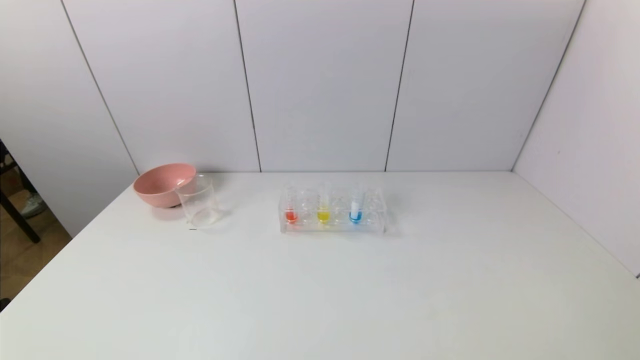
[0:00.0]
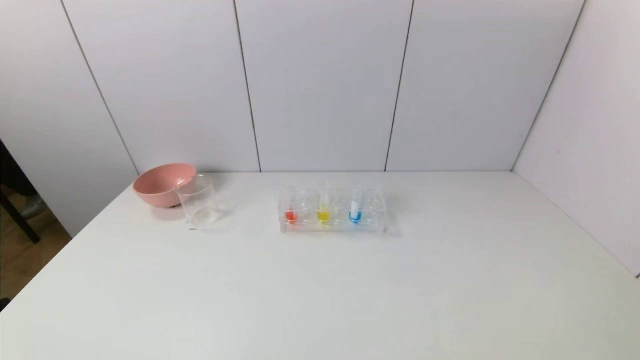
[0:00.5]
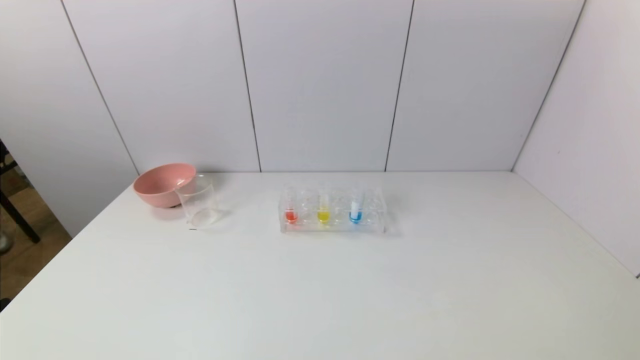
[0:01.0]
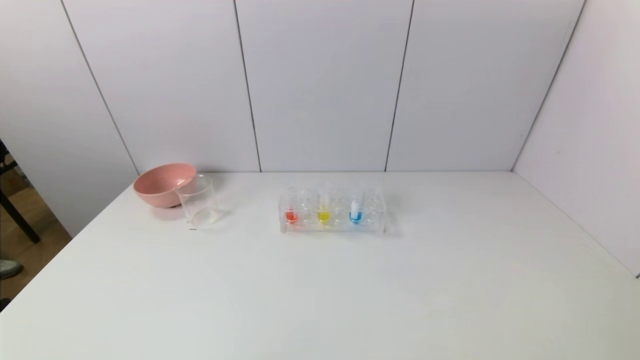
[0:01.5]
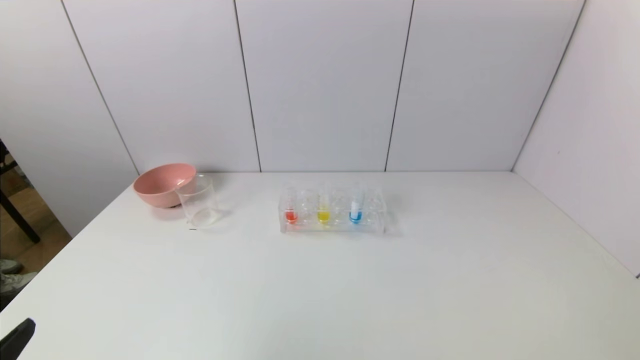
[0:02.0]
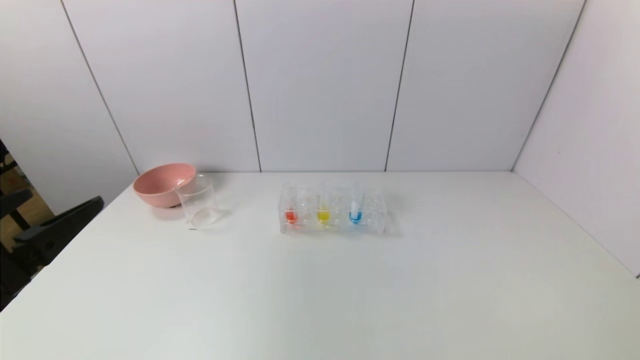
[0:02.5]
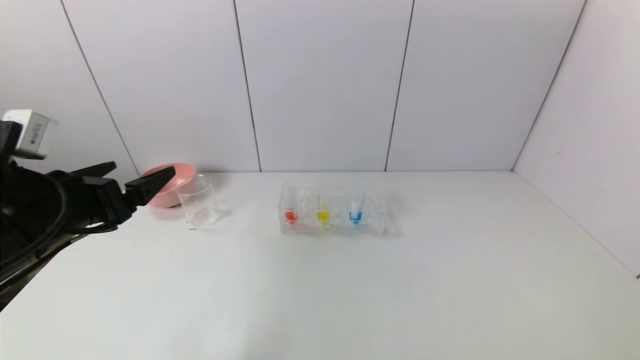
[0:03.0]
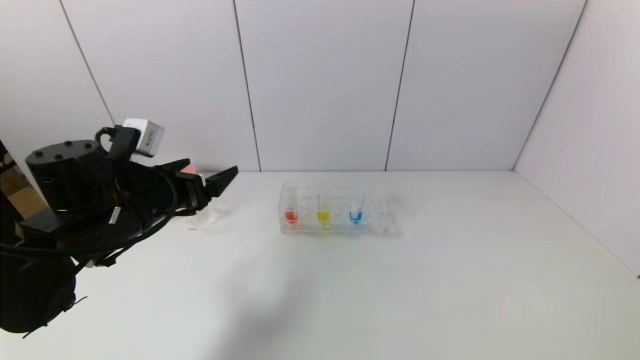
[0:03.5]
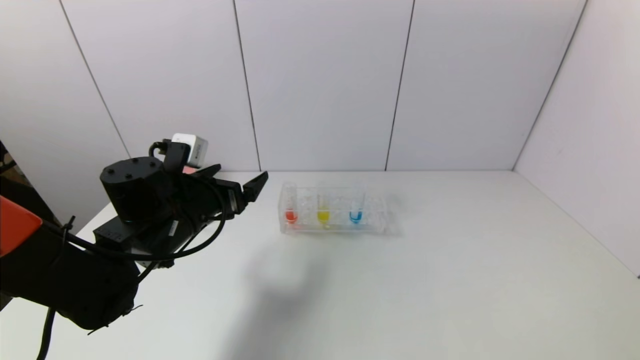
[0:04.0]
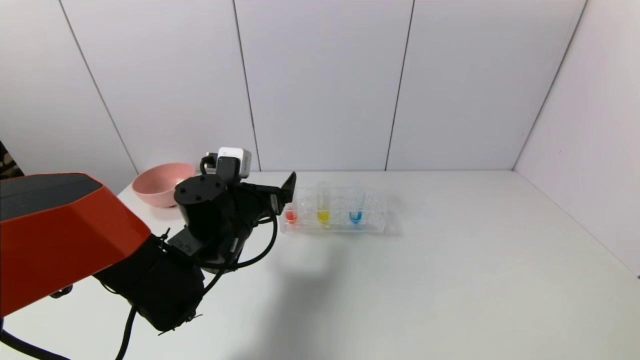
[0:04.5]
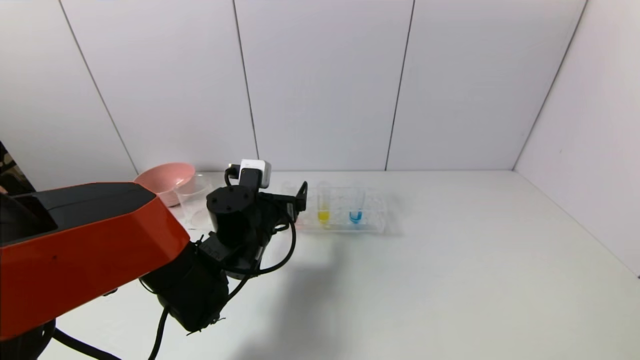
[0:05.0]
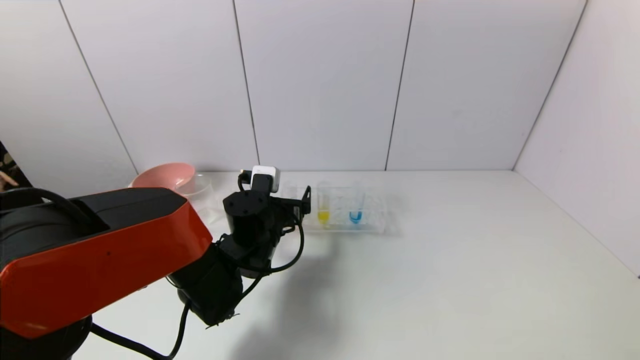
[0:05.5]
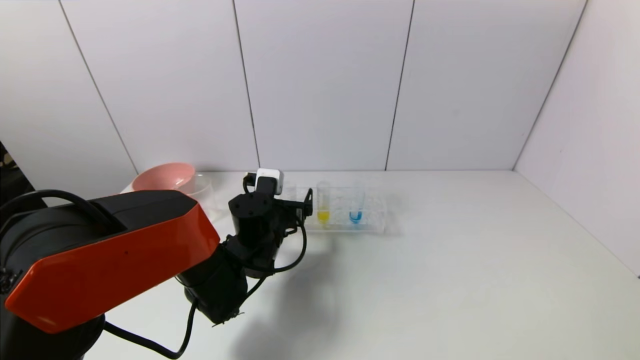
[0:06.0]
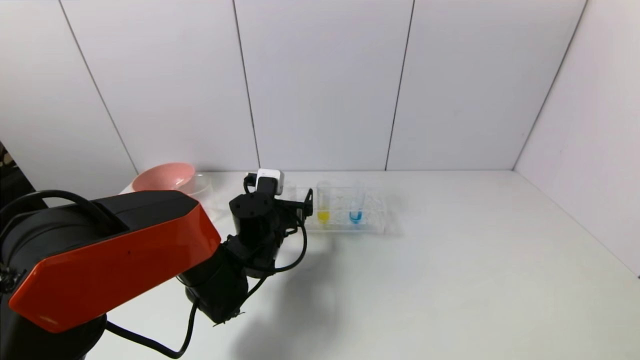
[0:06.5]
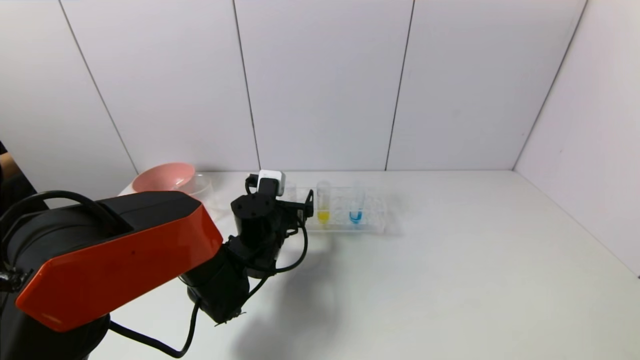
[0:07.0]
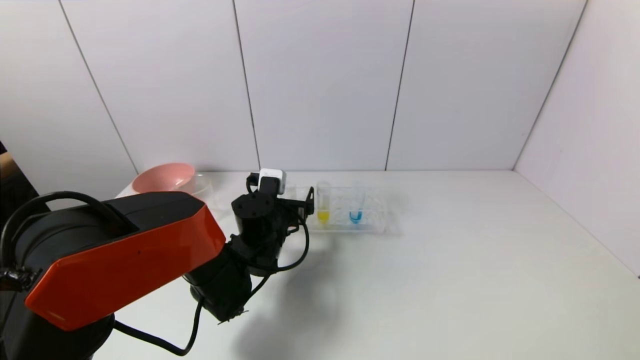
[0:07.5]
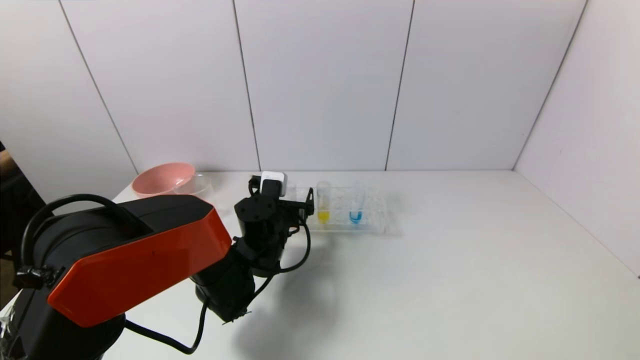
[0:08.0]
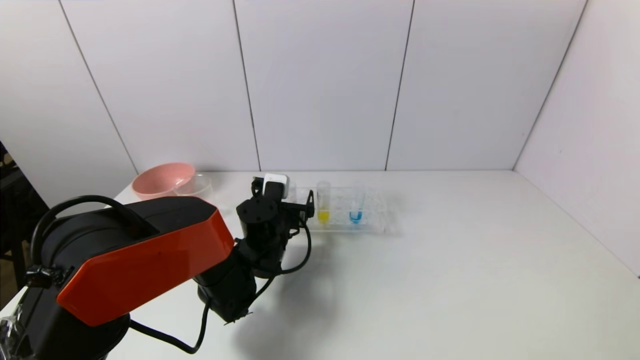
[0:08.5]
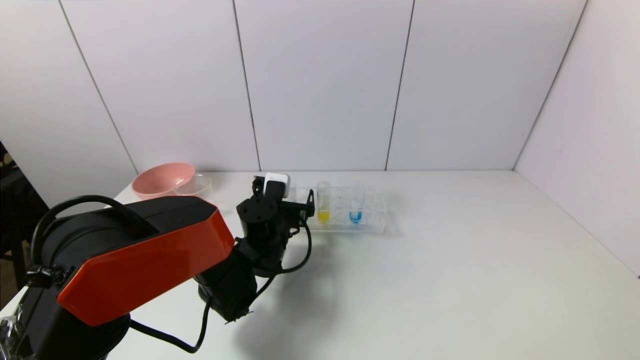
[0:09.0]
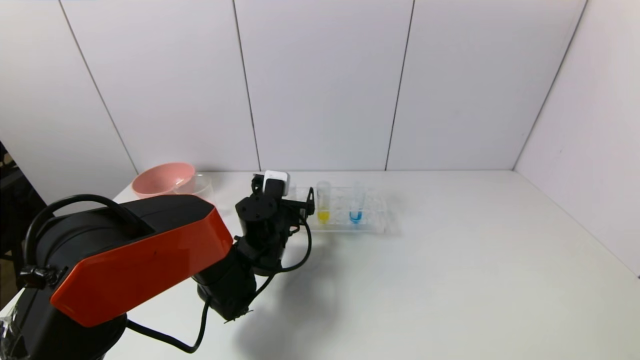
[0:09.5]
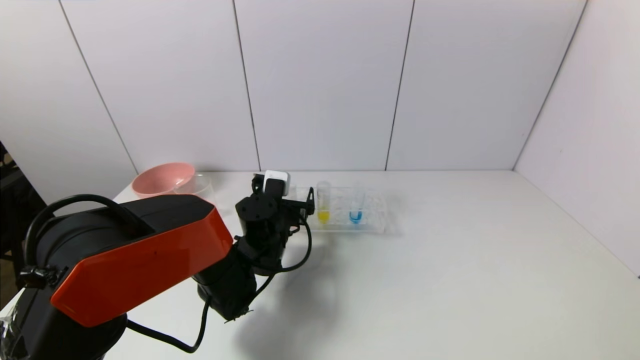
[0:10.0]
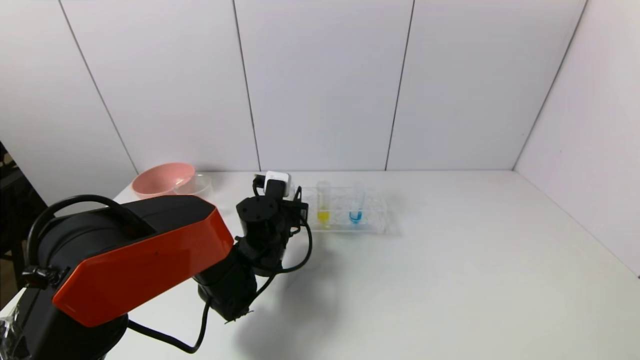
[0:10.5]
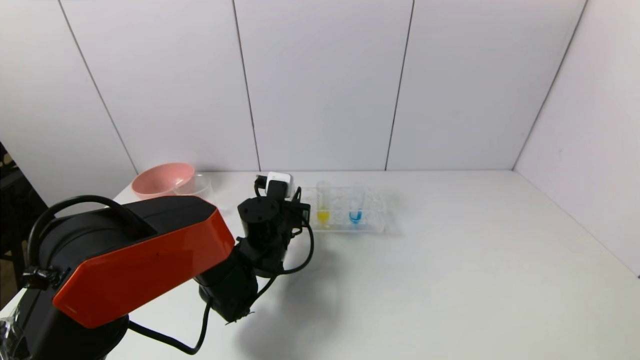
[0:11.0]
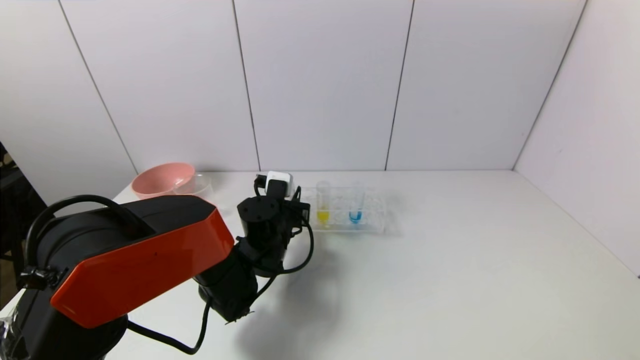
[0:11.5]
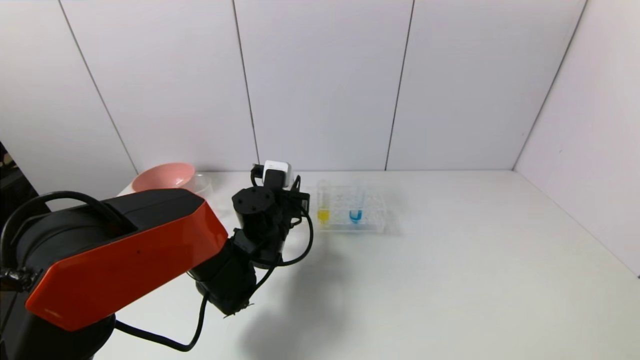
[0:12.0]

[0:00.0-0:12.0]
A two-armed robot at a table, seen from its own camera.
Task of the whole recording: pick up the test tube with yellow pigment and the test tube with red pigment by grippers and pour them into the beaker.
Step, 0.0 to 10.5 s: Grasp the red reagent with the left gripper.
0.0 to 2.0 s: The left gripper travels upward by about 10 cm.
2.0 to 4.0 s: The left gripper moves forward, some 30 cm.
4.0 to 6.0 s: The left gripper goes roughly 15 cm to the right and downward.
6.0 to 8.0 s: The grippers make only small movements.
8.0 to 10.0 s: Both grippers stay put.
10.0 to 12.0 s: The left gripper closes its fingers.

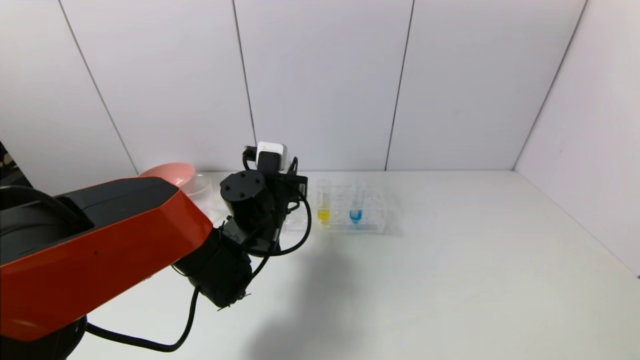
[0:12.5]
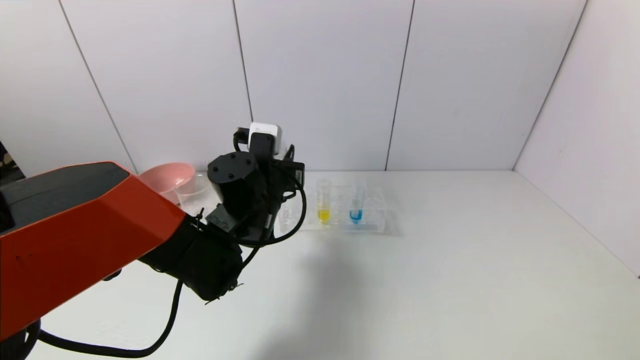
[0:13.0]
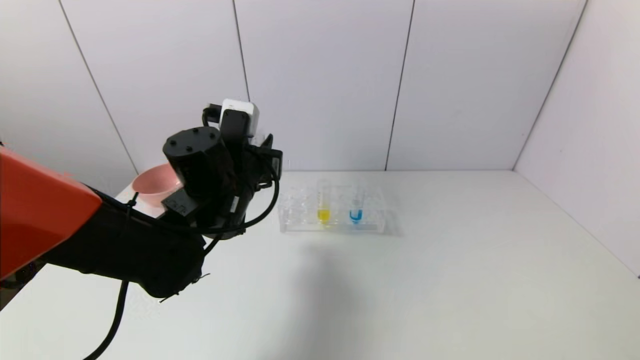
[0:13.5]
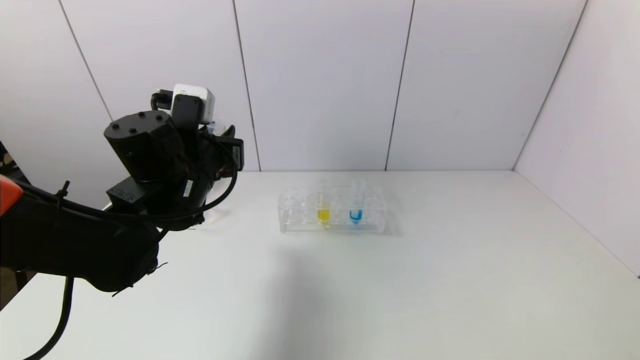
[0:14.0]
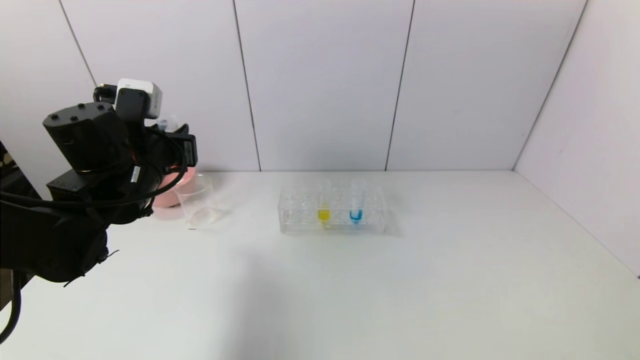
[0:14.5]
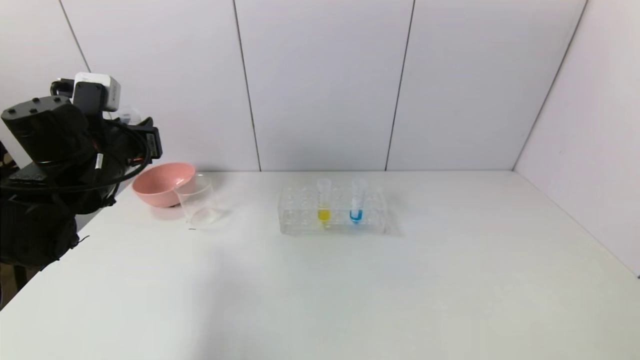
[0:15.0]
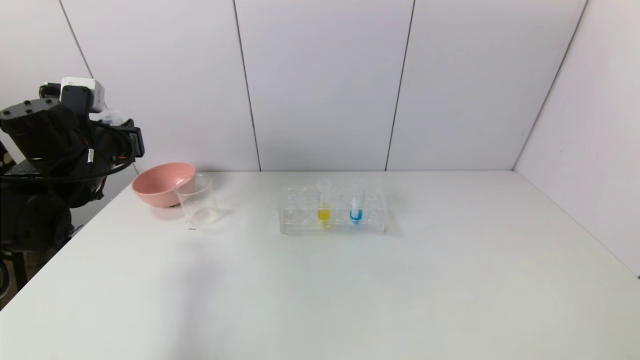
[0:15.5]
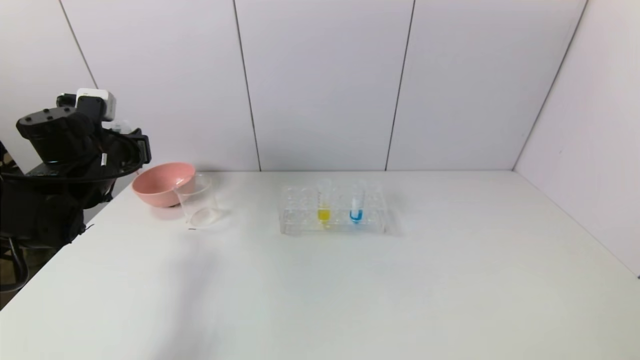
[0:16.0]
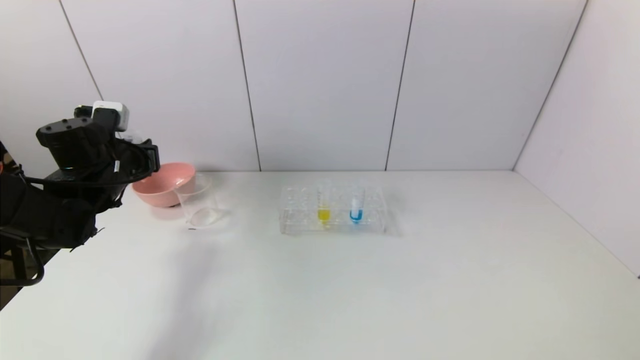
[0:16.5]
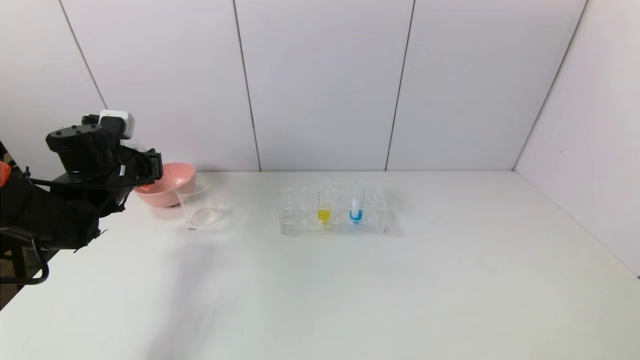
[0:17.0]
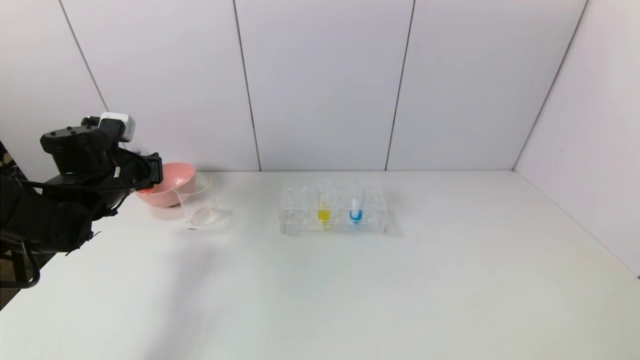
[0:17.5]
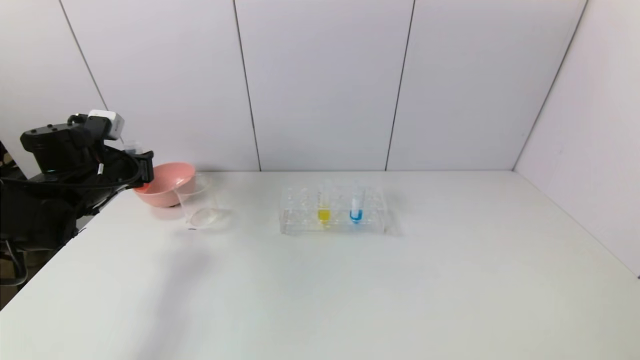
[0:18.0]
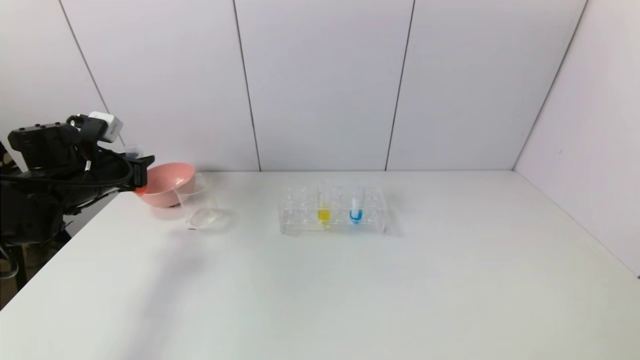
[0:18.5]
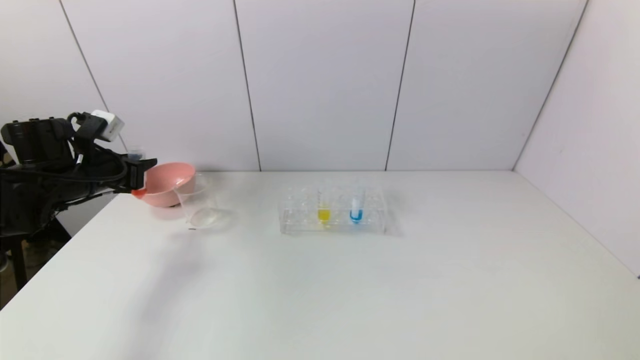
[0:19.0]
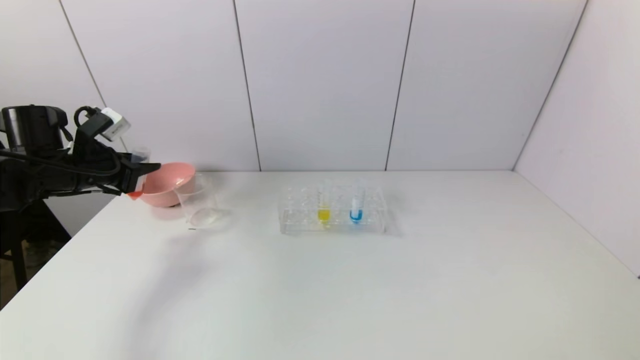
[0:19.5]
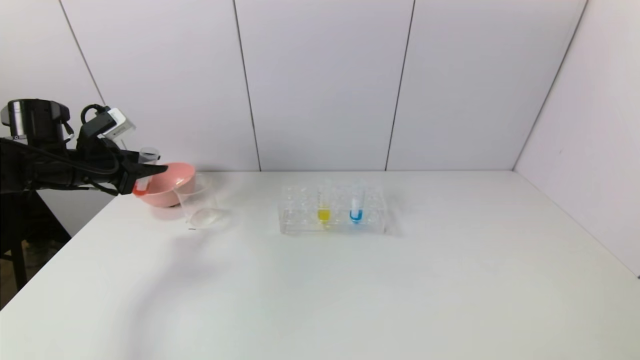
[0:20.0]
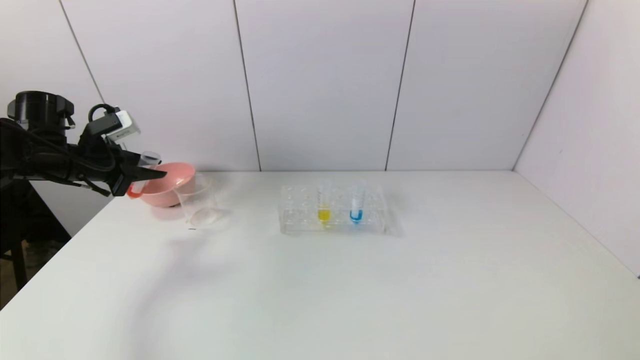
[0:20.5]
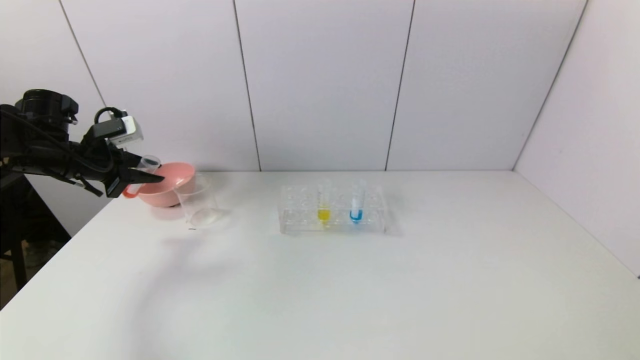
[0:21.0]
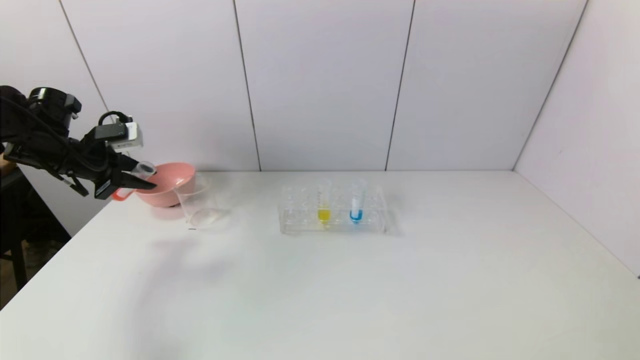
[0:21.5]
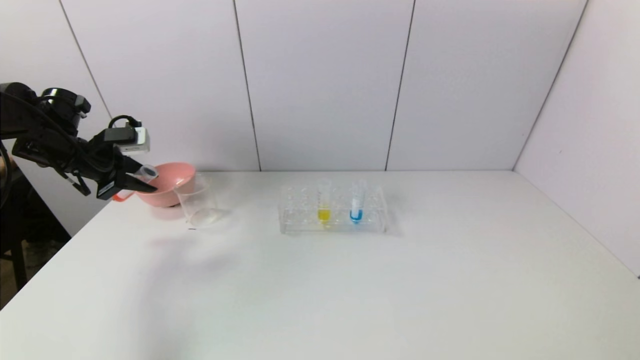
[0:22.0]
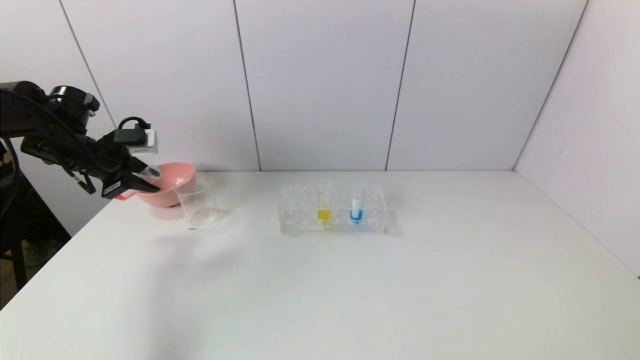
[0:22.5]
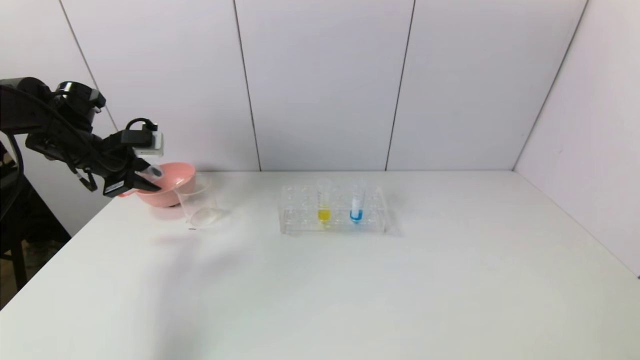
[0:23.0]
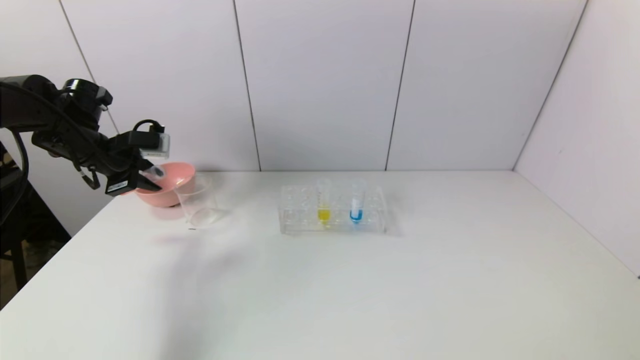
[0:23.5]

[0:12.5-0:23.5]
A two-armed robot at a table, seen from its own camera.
Task of the whole recording: pick up the test tube with yellow pigment and the test tube with red pigment by grippers and pour them into the beaker.
12.5 to 14.5 s: The left gripper travels to the left and upward by approximately 20 cm.
14.5 to 16.0 s: The left gripper shifts roughly 10 cm to the left.
16.0 to 18.0 s: The grippers move only a little.
21.5 to 23.5 s: The grippers make only small movements.
